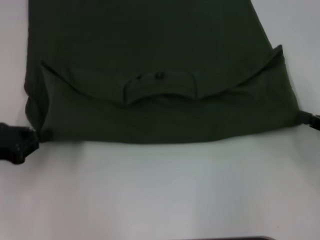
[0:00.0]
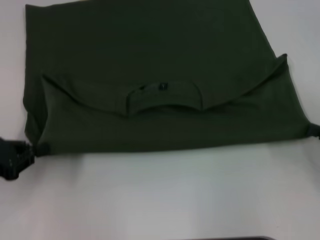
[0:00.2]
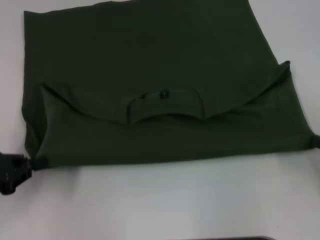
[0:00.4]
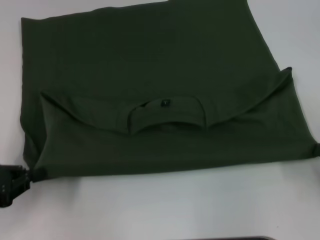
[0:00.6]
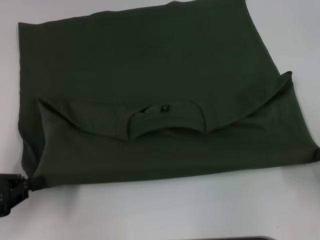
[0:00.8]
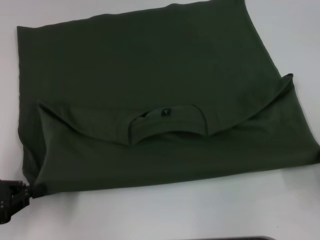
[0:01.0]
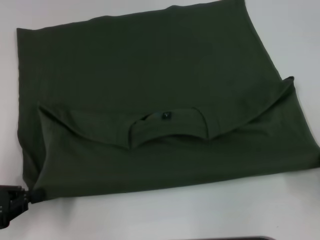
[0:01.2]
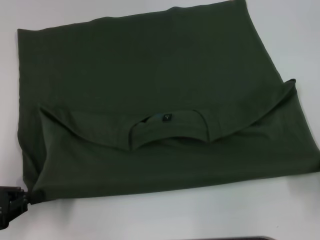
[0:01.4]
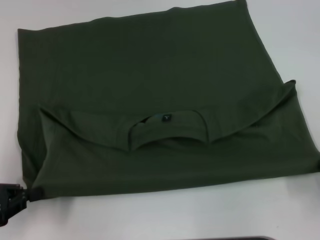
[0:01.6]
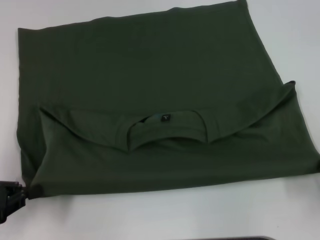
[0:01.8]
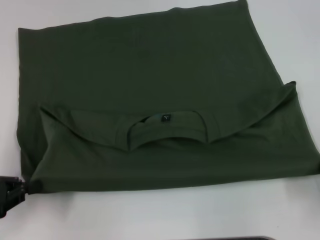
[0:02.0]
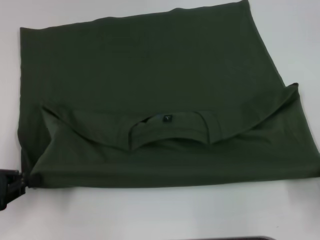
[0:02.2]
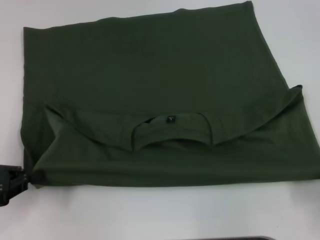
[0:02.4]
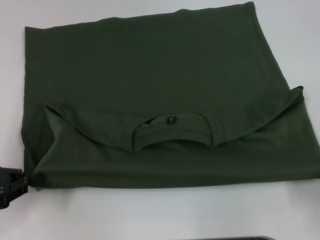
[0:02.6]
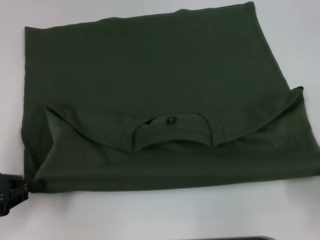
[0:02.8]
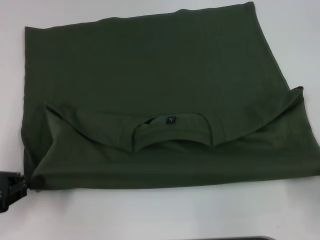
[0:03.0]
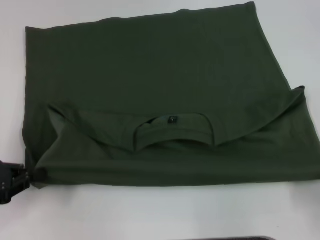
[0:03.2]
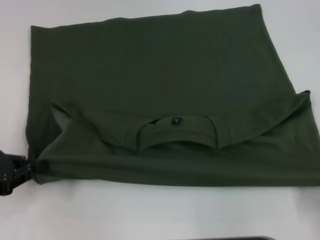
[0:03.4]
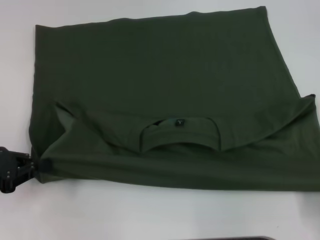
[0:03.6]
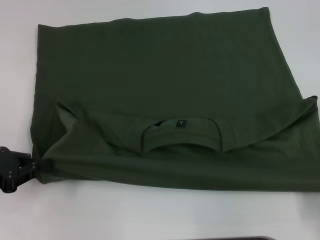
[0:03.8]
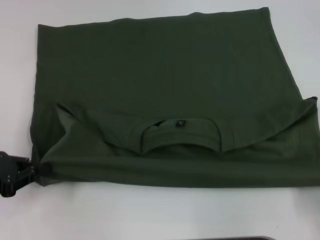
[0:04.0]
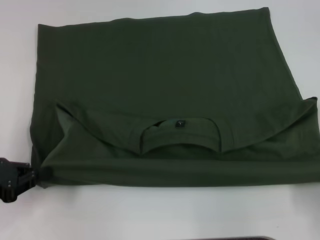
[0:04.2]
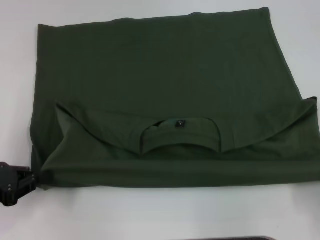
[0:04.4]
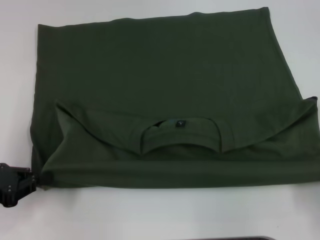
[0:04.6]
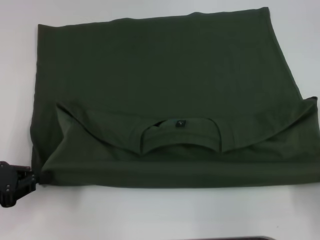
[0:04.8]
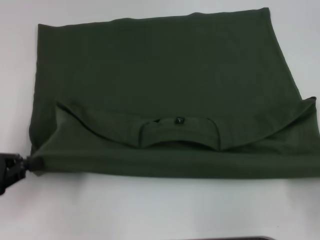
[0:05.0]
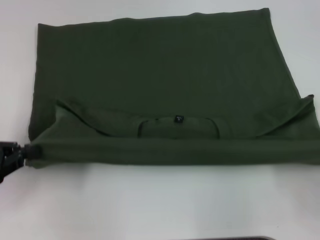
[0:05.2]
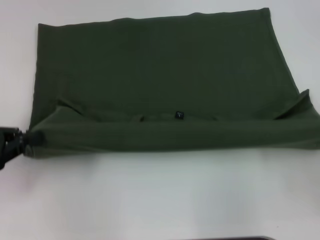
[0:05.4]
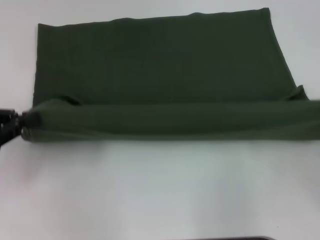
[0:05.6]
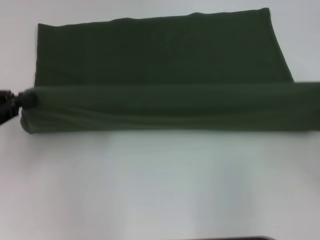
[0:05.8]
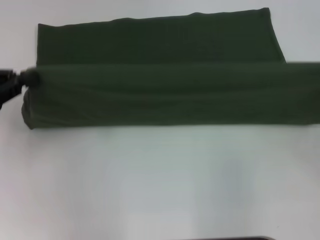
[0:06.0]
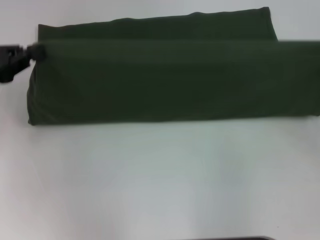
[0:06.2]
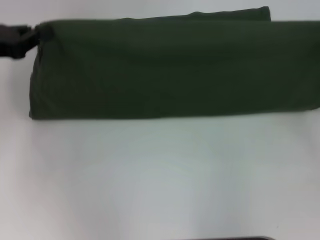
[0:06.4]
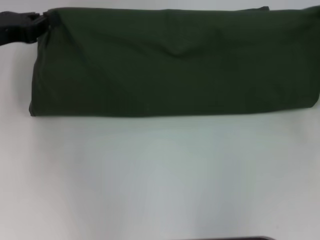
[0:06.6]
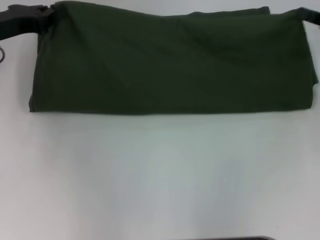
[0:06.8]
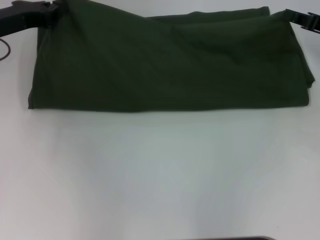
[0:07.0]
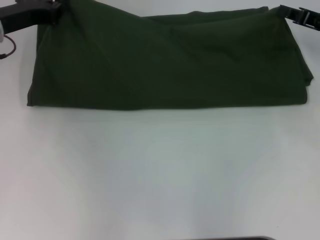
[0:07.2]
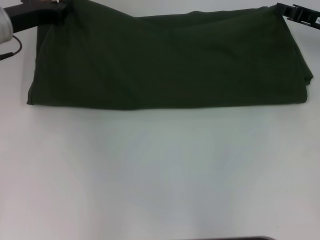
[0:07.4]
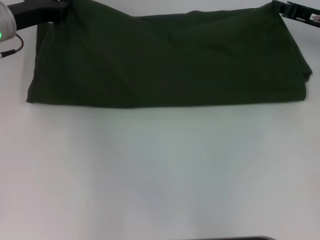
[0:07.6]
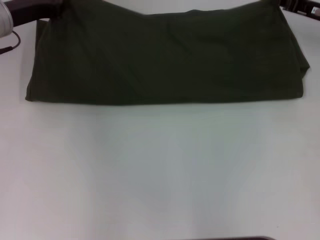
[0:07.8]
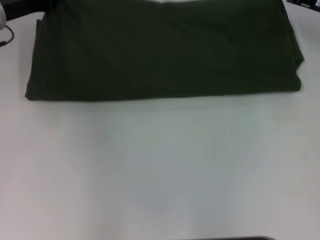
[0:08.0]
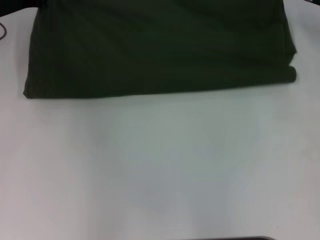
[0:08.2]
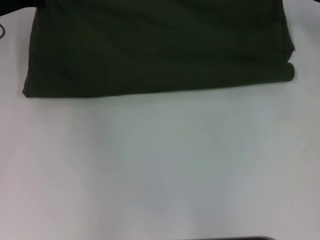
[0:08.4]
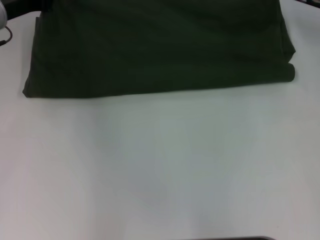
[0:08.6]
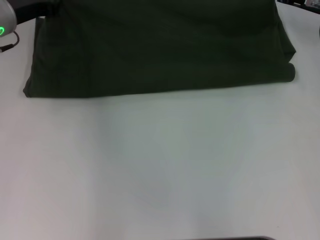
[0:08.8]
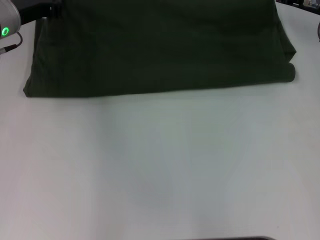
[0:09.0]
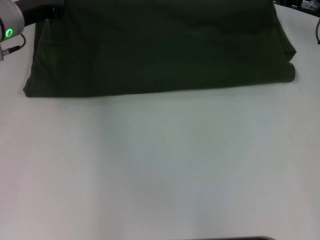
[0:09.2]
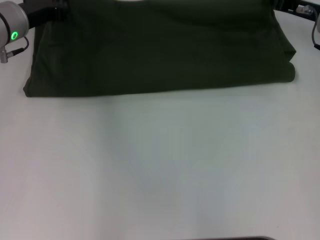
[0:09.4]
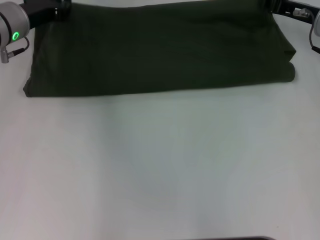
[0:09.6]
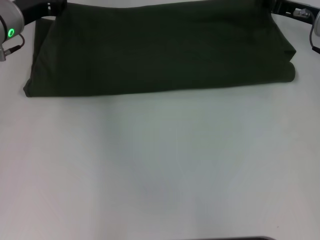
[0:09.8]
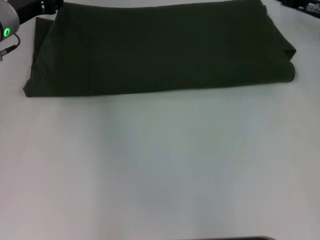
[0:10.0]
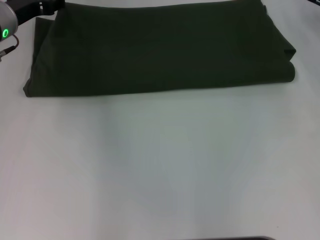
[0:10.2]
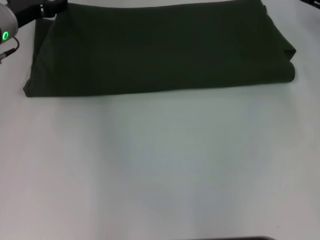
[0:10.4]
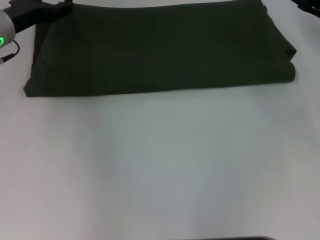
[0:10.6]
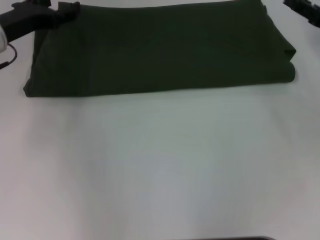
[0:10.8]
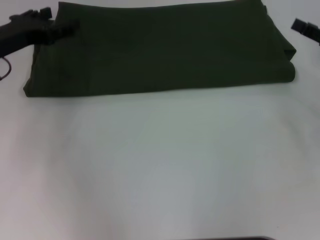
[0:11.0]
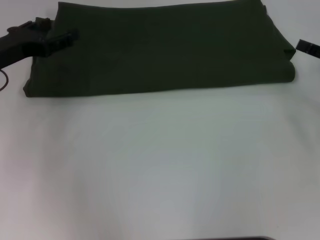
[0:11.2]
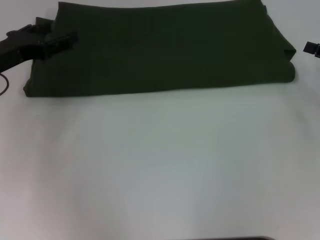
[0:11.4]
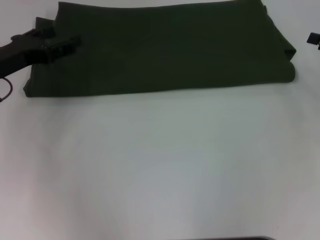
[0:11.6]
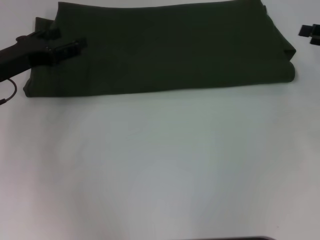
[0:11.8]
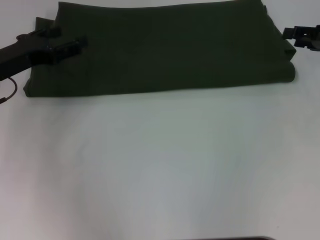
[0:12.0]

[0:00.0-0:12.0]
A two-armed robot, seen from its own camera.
Step, 0:00.0 to 0:02.2: Pull the clothes with your left hand.
Step, 0:00.0 to 0:02.2: Pull the clothes with your right hand.
Step, 0:02.4 to 0:10.4: Fold the clothes with your left hand.
Step, 0:02.4 to 0:10.4: Fold the clothes with your right hand.
0:00.0 to 0:01.6: Both grippers travel together backward, about 10 cm.
0:01.6 to 0:04.4: The grippers move only a little.
0:04.4 to 0:06.0: Both grippers move forward and upward, some 15 cm.
0:06.0 to 0:07.6: The right gripper travels forward and to the left by roughly 20 cm. The left gripper is displaced forward and to the right by about 15 cm.
0:07.6 to 0:09.0: The grippers make only small movements.
0:09.0 to 0:10.4: The right gripper opens, while the left gripper opens its fingers.
0:10.4 to 0:12.0: The left gripper is displaced backward by some 10 cm.

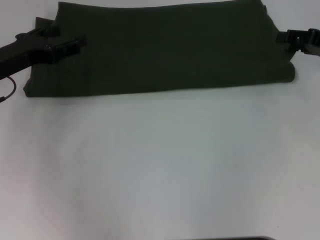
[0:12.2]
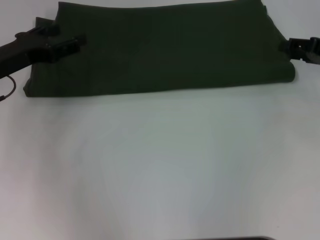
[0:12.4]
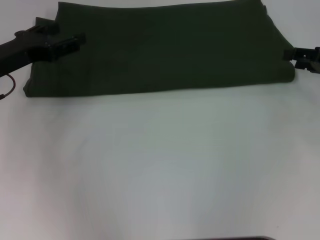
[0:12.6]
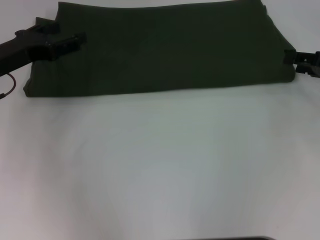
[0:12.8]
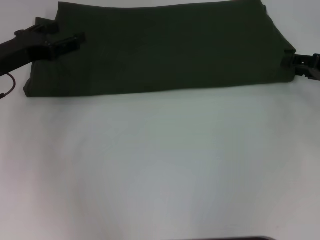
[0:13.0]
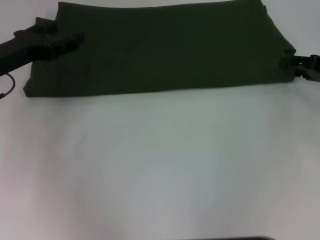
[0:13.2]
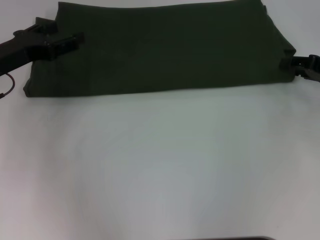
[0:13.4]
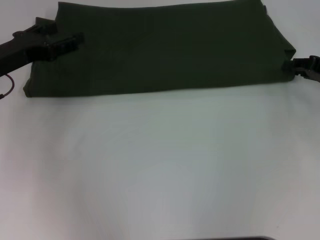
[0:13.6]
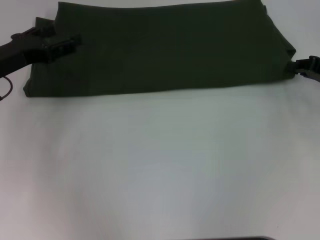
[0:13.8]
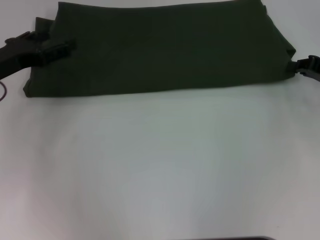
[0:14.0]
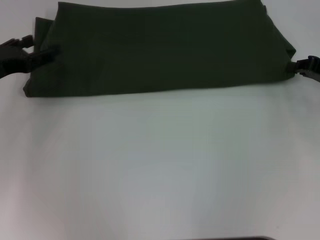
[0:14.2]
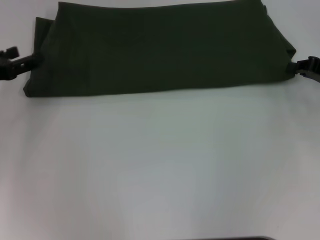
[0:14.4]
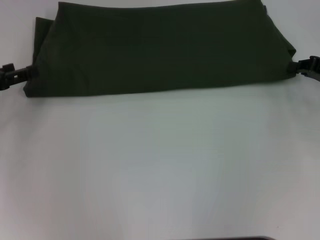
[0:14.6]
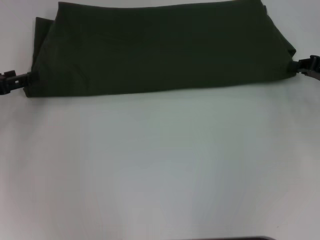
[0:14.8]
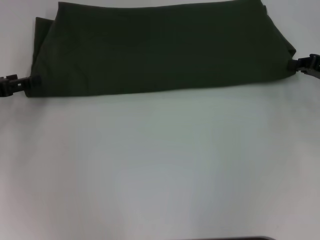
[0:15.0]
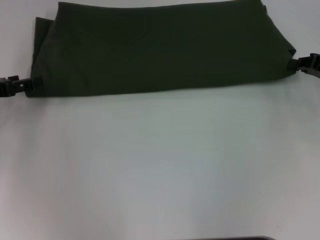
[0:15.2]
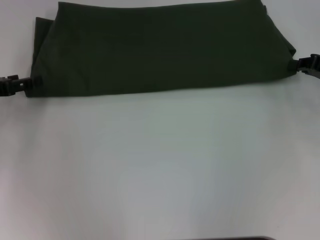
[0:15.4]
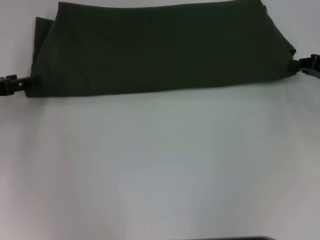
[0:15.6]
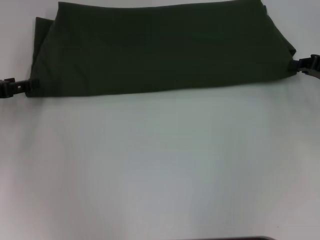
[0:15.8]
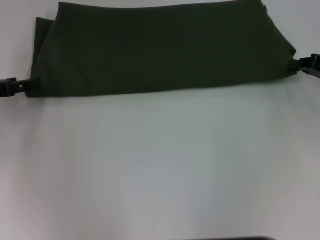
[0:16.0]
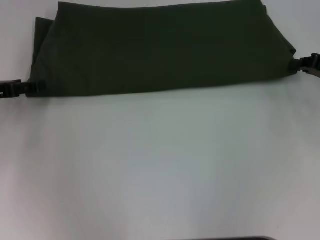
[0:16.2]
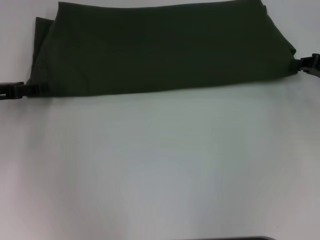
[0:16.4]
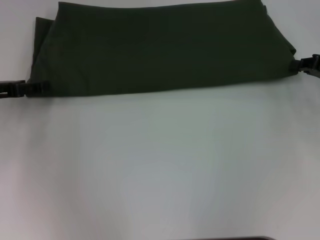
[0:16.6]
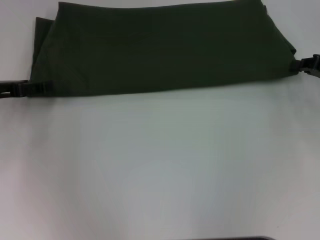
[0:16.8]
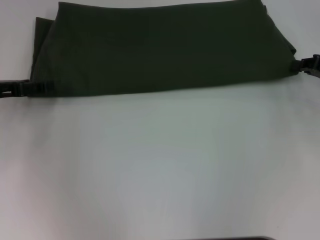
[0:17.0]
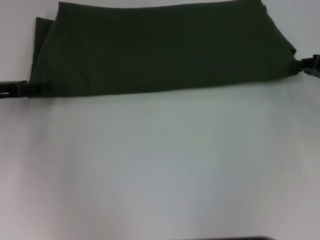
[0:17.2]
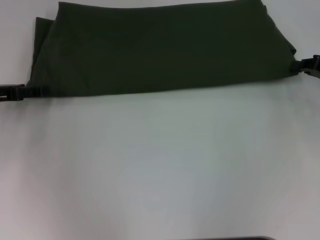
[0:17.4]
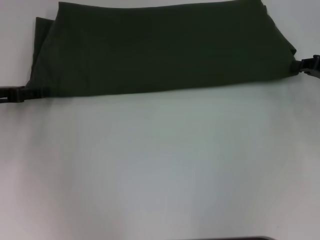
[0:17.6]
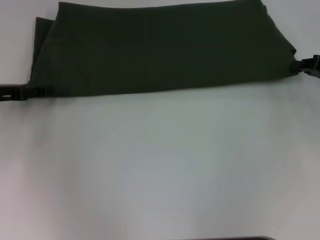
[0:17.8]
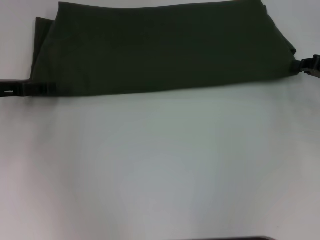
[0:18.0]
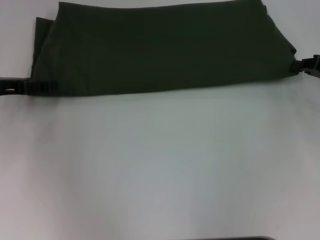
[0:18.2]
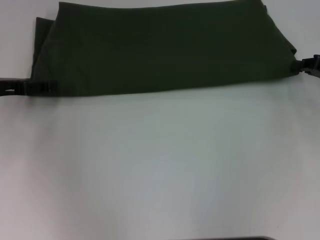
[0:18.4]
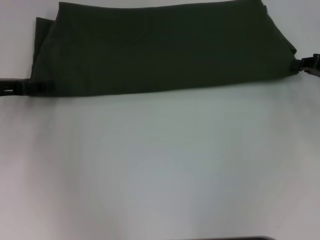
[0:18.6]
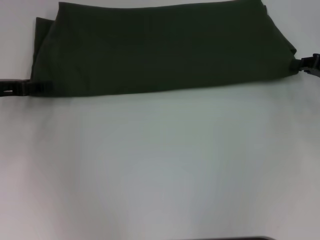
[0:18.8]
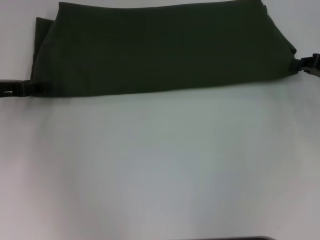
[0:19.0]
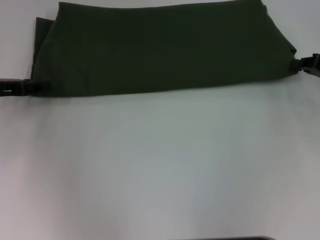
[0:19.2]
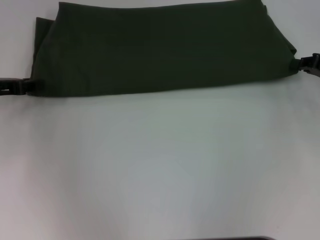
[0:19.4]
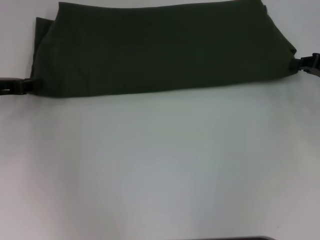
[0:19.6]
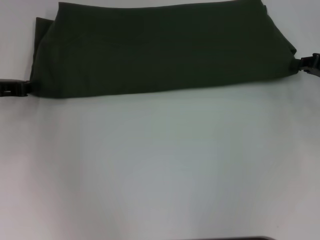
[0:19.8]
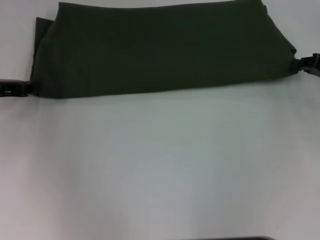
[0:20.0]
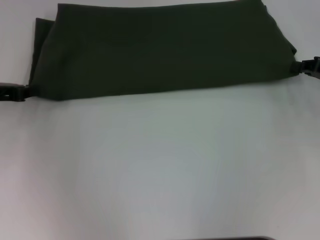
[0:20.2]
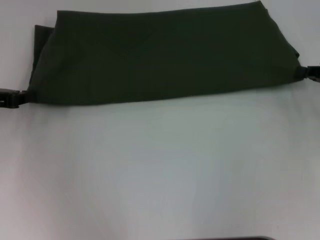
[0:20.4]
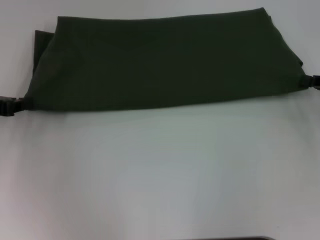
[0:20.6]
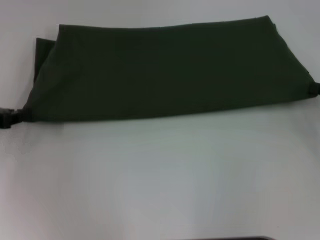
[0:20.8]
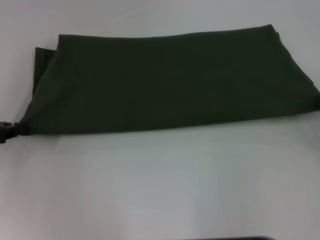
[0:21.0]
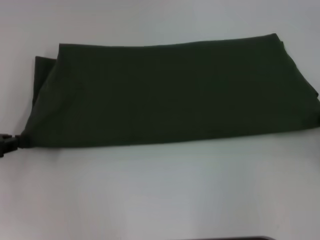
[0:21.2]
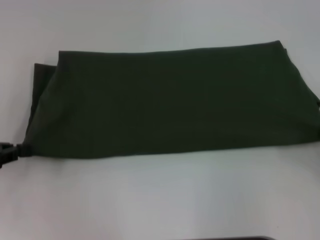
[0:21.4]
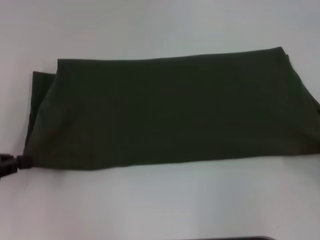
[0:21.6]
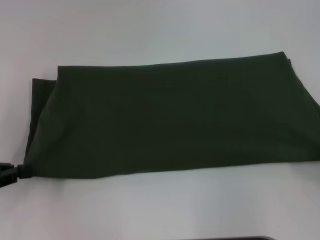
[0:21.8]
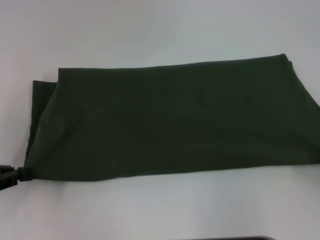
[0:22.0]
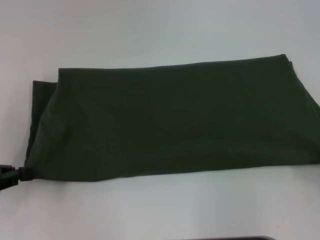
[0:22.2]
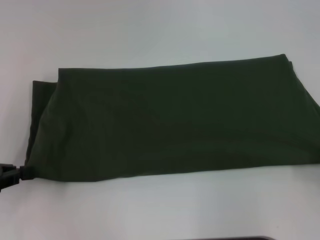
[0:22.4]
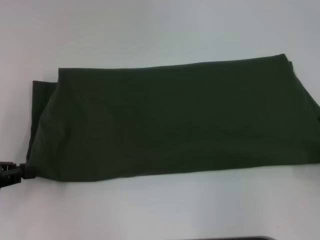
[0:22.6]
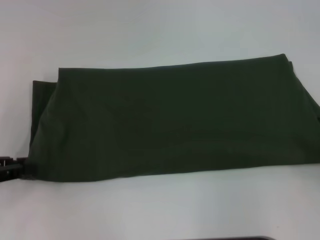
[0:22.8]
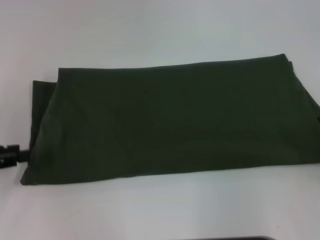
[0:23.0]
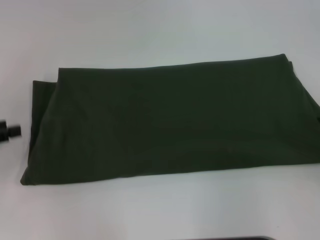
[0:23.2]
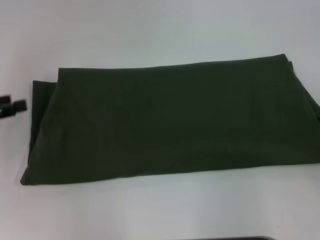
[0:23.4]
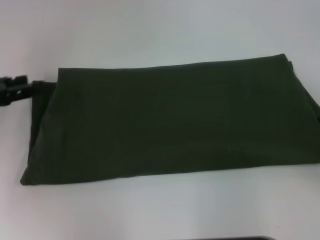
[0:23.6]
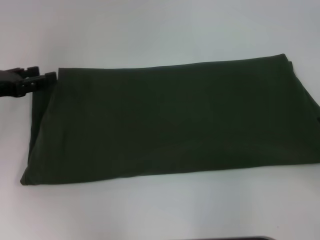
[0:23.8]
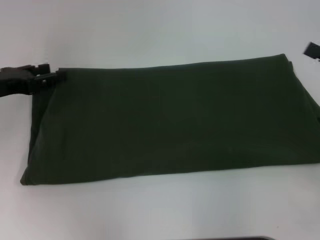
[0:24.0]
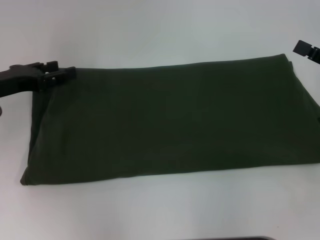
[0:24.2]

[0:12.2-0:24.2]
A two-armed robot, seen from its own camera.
Step, 0:12.2 to 0:23.0: Pull the clothes with your left hand.
Step, 0:12.2 to 0:23.0: Pull the clothes with your right hand.
0:12.2 to 0:13.8: The right gripper closes up.
0:13.8 to 0:15.2: The left gripper moves to the left, approximately 5 cm.
0:19.8 to 0:21.2: The grippers both shift backward by roughly 10 cm.
0:21.2 to 0:22.6: The right gripper travels backward by approximately 5 cm.
0:22.6 to 0:24.2: The left gripper moves forward and to the right, about 10 cm, and opens.
